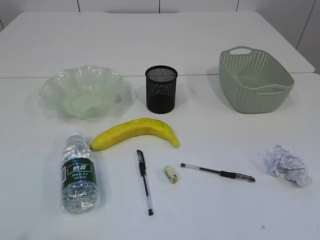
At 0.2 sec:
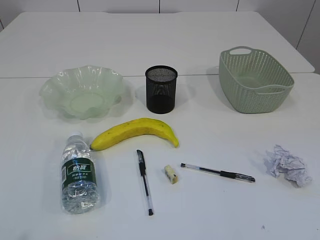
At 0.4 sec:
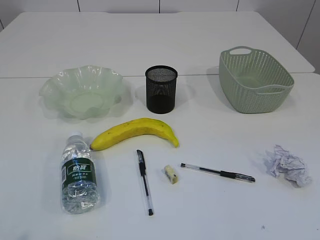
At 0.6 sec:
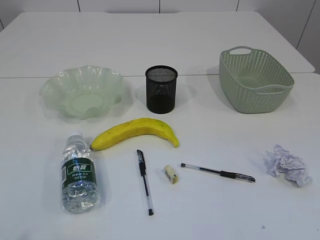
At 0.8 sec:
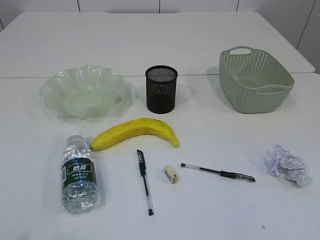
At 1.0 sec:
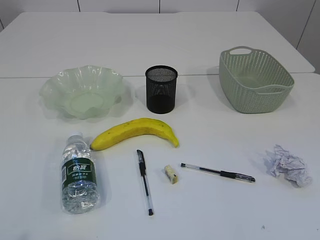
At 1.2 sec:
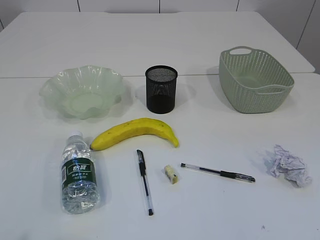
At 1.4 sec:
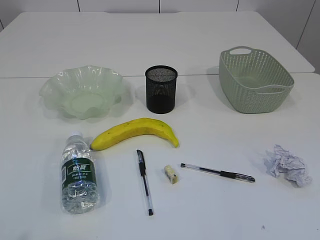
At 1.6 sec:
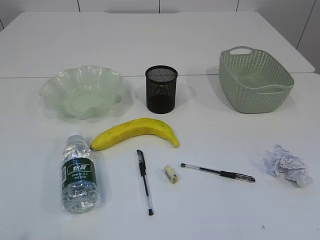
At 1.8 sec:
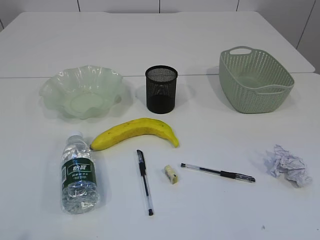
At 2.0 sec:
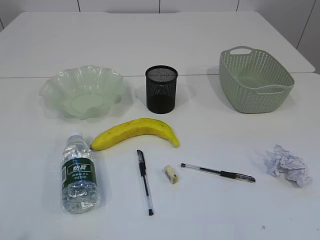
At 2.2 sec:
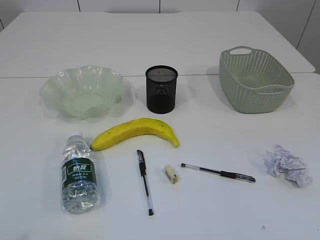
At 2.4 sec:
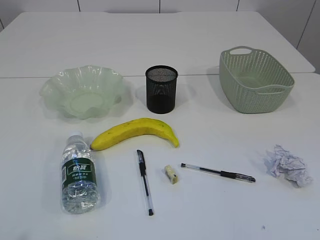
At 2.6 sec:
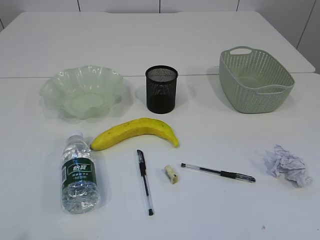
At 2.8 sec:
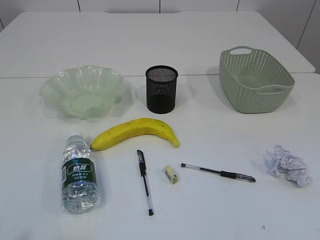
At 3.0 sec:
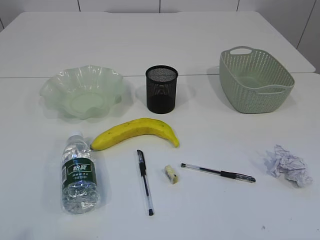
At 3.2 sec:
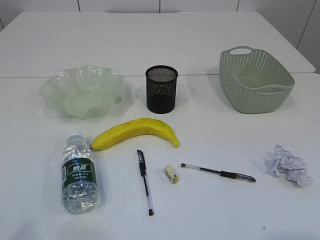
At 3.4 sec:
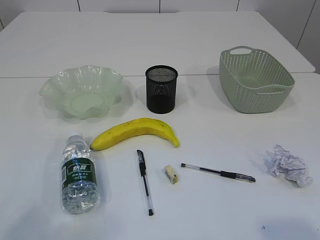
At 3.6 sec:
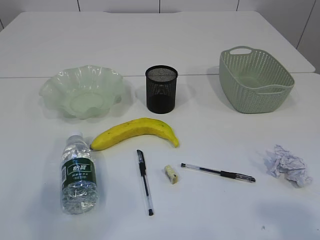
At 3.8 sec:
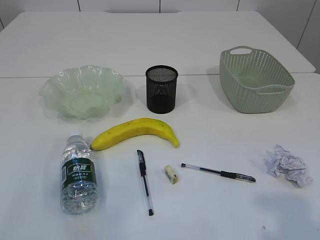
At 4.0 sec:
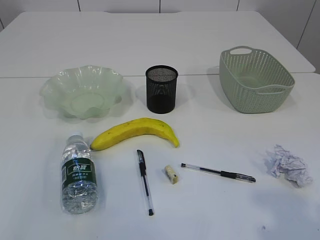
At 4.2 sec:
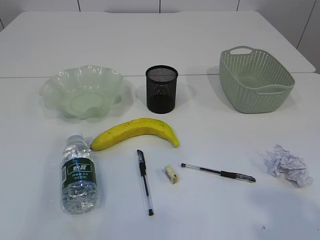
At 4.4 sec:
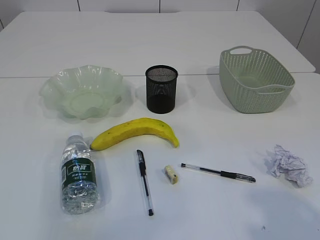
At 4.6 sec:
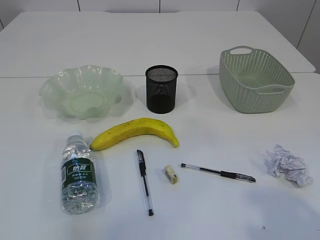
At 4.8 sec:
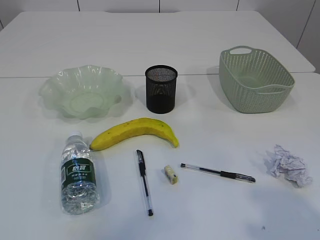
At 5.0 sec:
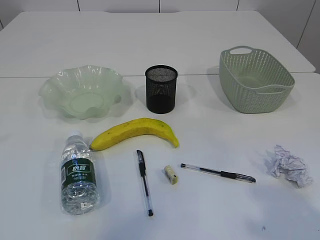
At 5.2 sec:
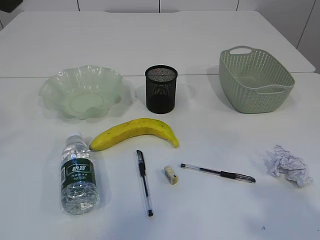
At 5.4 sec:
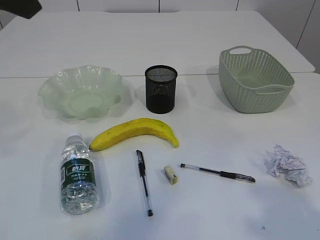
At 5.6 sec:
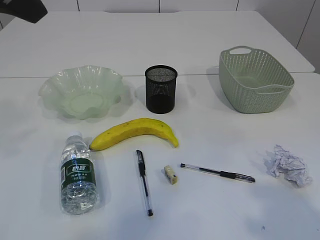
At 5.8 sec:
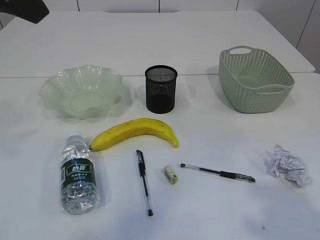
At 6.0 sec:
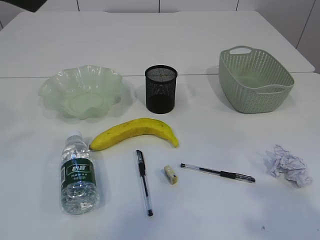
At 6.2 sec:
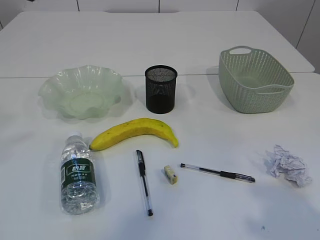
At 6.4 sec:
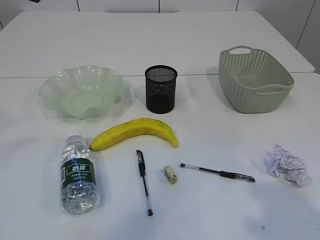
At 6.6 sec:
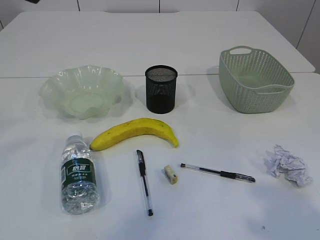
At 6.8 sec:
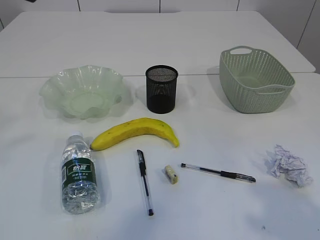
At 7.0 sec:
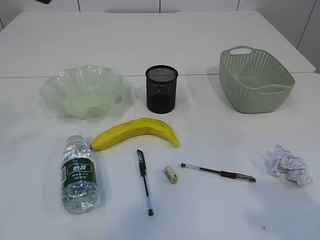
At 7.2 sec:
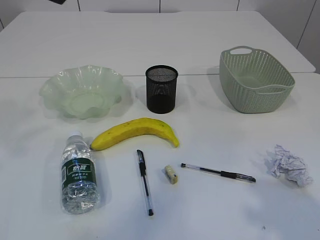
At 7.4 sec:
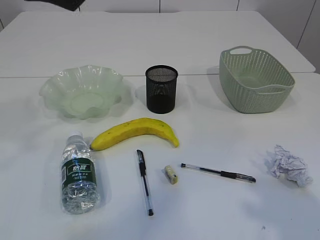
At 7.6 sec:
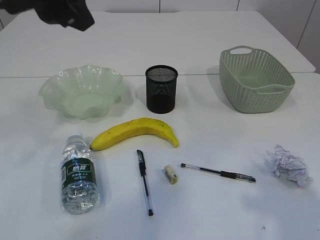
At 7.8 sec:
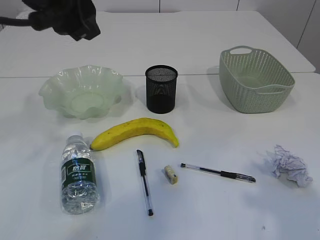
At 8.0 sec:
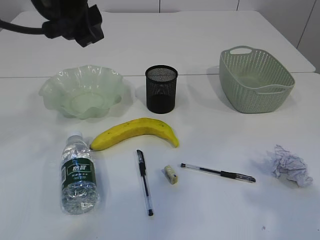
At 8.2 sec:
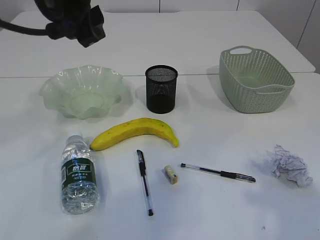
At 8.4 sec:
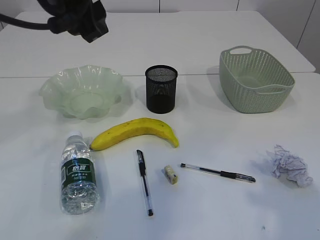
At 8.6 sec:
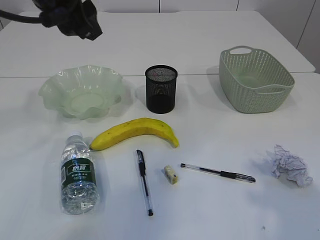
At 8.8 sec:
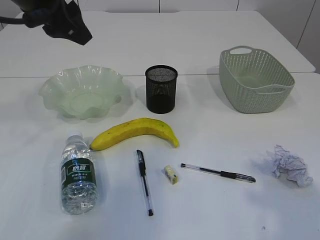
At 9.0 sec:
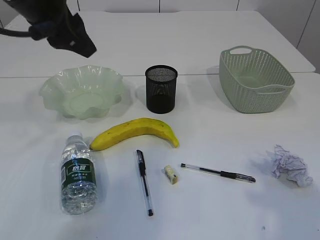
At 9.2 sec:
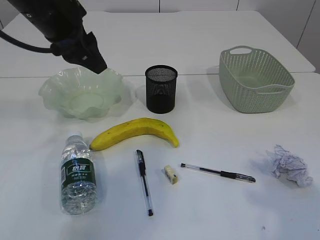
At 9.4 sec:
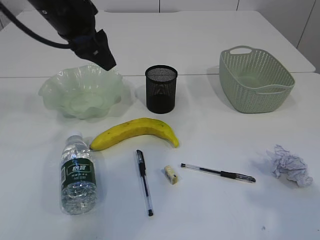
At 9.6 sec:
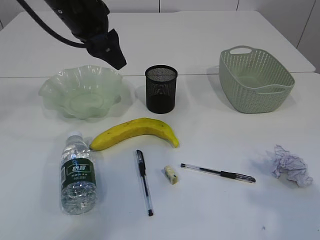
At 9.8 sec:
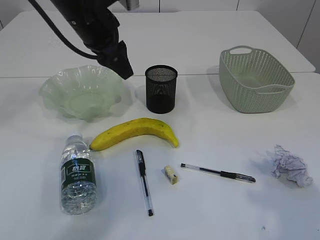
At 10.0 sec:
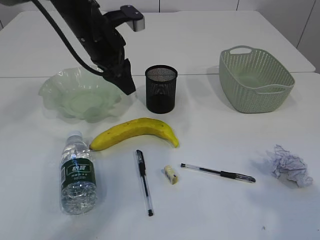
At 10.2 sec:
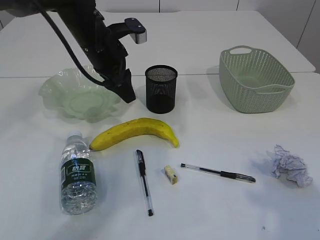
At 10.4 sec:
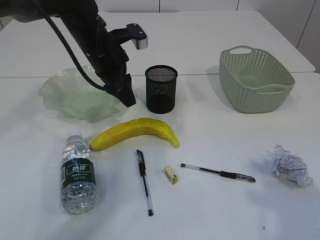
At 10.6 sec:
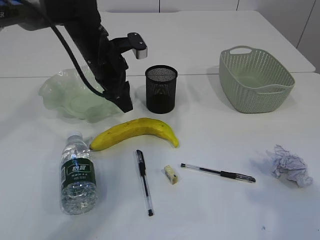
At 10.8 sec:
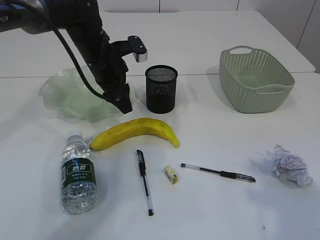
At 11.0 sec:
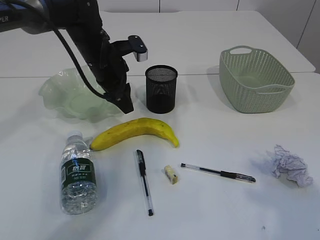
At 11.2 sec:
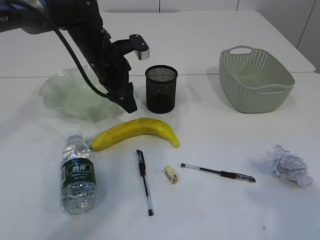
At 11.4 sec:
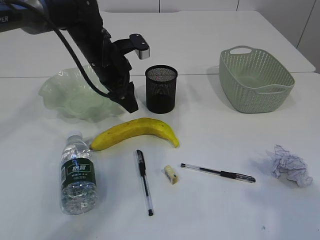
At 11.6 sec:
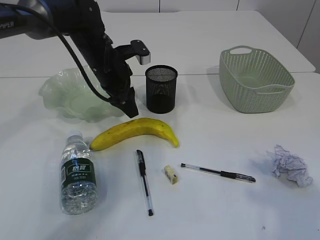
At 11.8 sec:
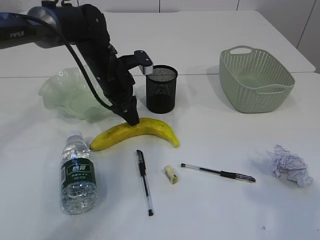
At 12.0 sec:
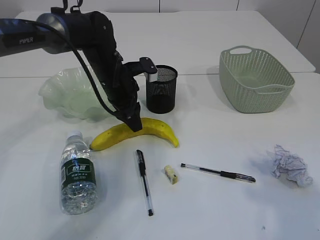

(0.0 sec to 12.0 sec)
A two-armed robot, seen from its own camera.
4.4 sec - 6.0 sec: The left gripper heads to the right and forward, covering some 15 cm.
6.0 sec - 7.6 sec: The left gripper changes place by about 5 cm.
7.6 sec - 9.0 sec: The left gripper heads forward and downward, covering about 10 cm.
9.0 sec - 10.4 sec: The left gripper travels downward, forward and to the right by approximately 15 cm.
10.4 sec - 12.0 sec: The left gripper travels downward by roughly 5 cm.

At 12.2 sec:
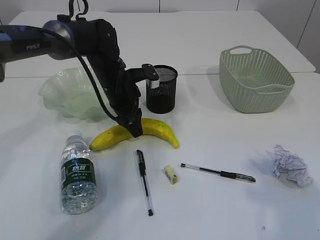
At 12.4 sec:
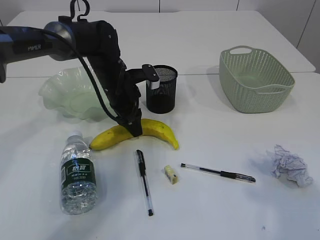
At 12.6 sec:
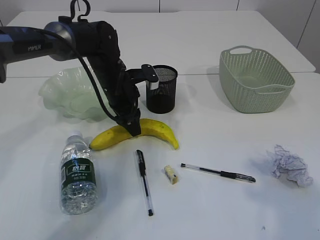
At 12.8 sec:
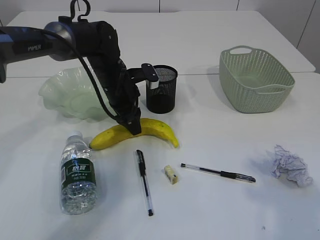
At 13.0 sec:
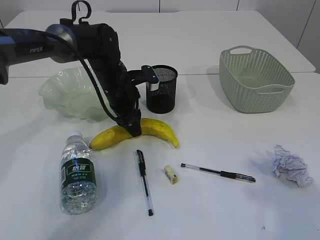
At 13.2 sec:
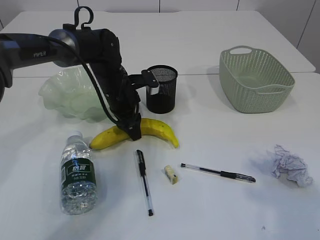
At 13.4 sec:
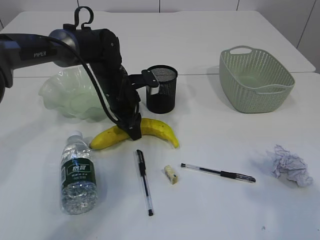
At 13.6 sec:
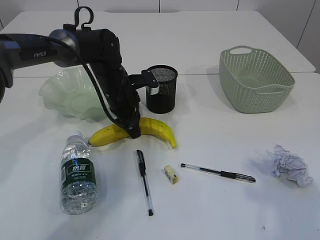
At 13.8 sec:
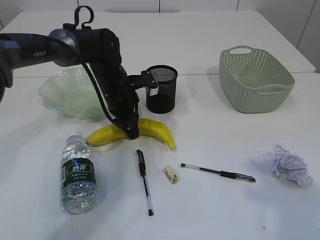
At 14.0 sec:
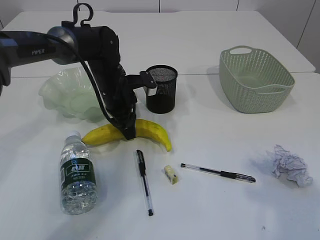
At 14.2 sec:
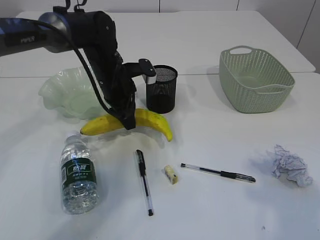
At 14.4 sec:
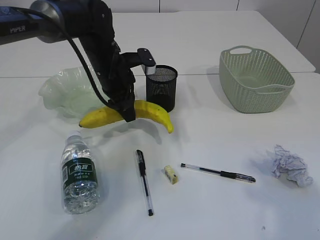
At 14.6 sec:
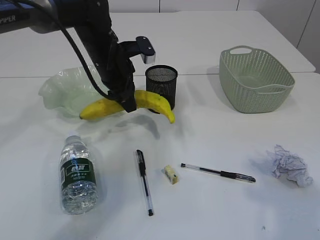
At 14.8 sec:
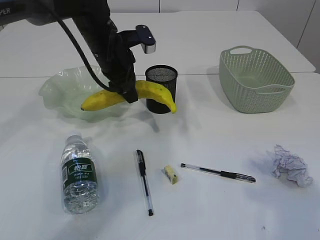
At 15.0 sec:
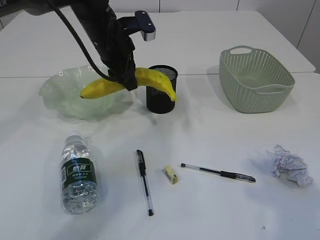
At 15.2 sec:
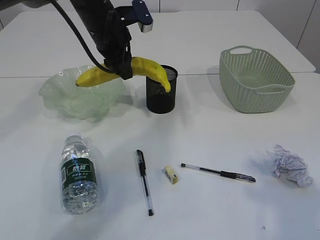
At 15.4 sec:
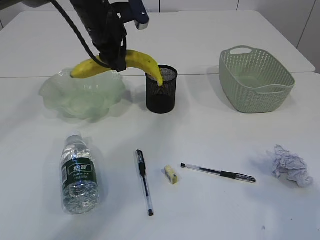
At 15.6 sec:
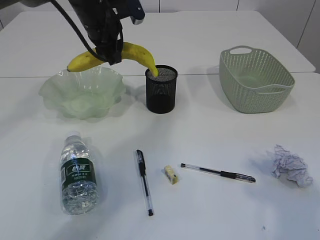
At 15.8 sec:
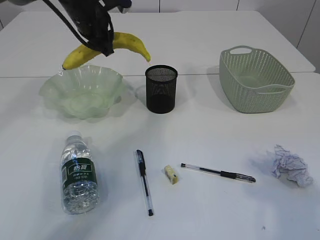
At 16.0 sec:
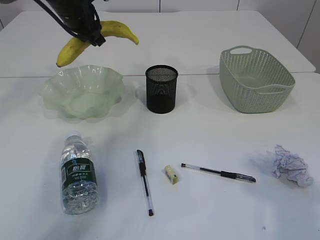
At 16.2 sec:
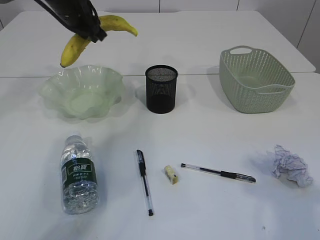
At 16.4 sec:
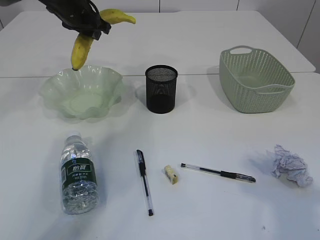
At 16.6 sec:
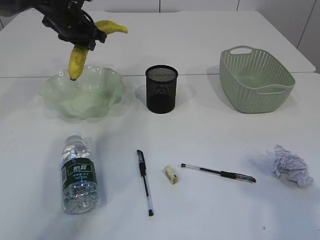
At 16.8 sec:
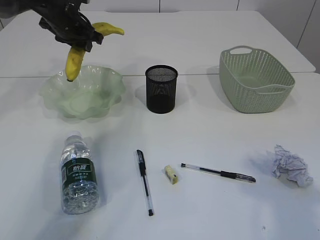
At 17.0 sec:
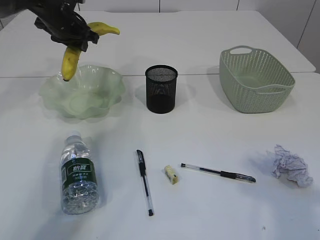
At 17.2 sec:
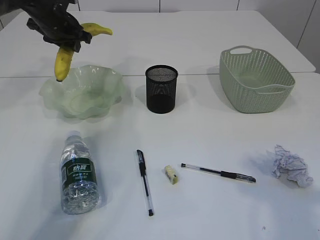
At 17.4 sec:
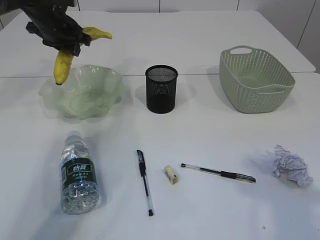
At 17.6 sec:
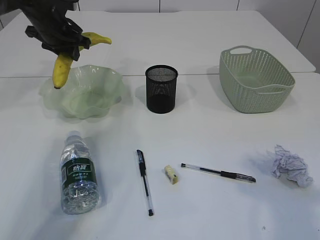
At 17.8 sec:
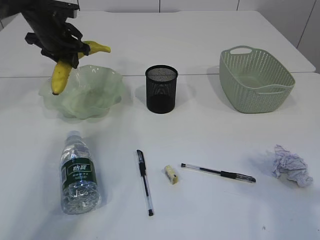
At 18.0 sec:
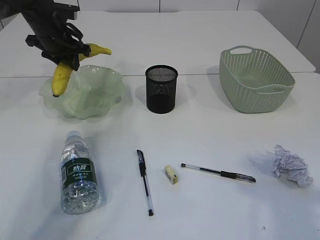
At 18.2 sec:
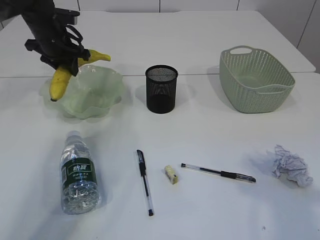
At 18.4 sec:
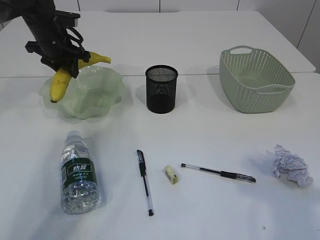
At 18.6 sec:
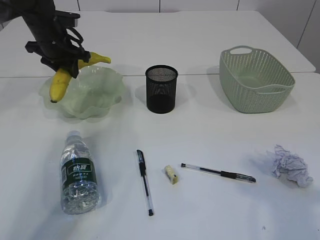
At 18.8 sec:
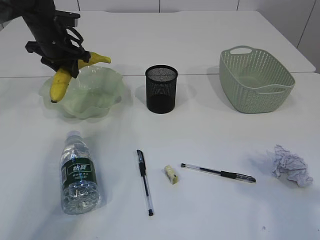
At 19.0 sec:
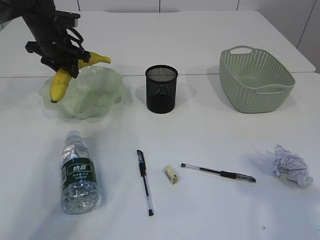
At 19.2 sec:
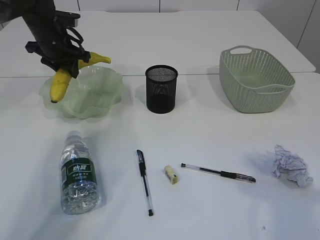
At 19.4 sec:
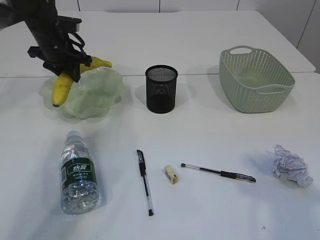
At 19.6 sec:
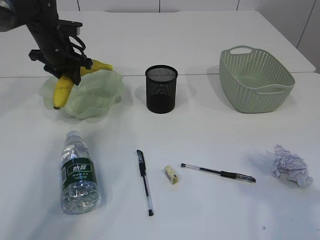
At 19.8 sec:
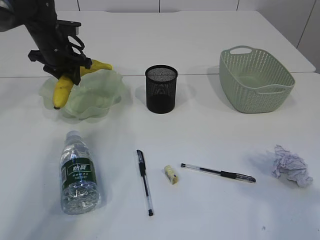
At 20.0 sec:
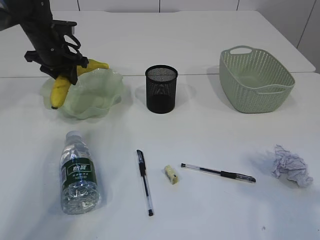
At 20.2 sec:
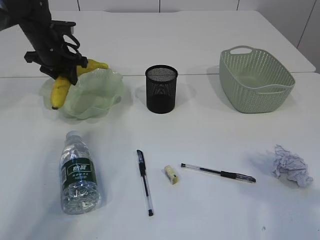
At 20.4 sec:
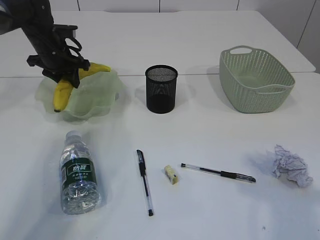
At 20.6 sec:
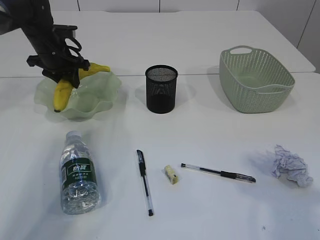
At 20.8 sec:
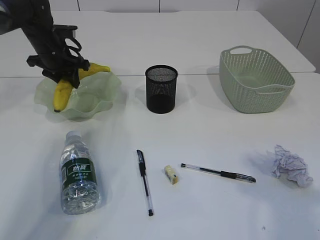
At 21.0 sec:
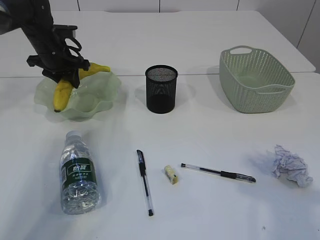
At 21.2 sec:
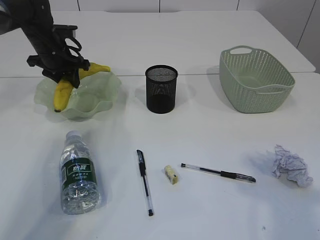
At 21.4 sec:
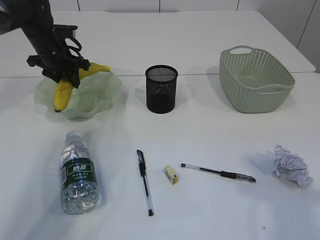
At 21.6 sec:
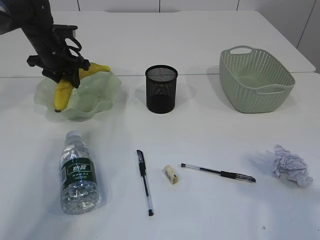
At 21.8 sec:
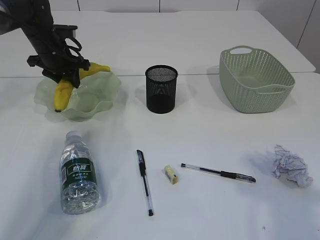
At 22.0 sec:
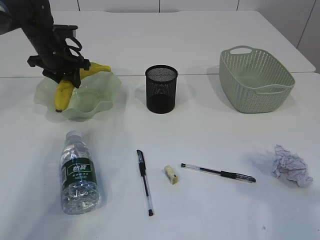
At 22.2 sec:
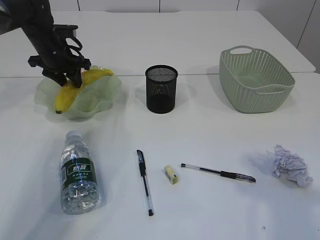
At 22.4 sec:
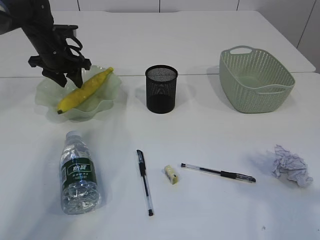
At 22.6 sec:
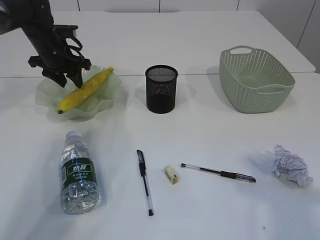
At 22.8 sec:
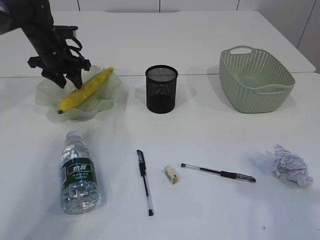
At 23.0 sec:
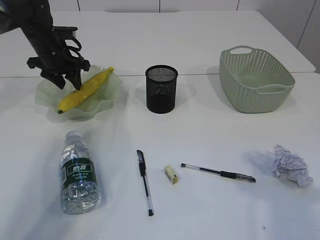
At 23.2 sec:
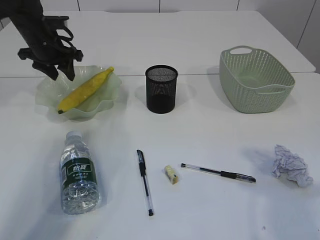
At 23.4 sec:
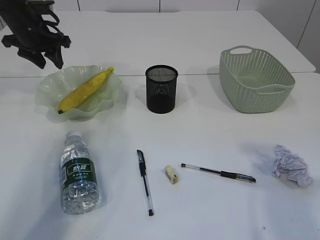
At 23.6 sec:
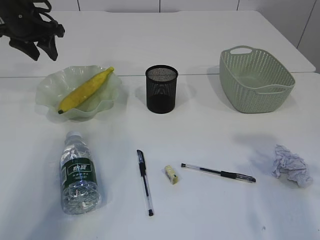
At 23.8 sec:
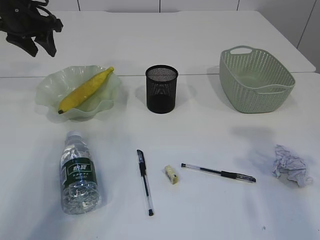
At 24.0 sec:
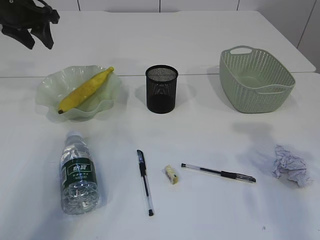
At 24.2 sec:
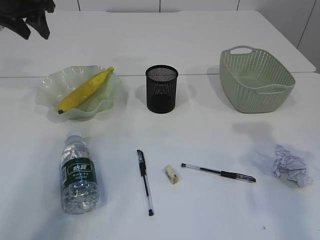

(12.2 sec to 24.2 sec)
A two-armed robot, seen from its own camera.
Step, 14.6 sec - 23.2 sec: Place the banana in the plate.
12.2 sec - 13.8 sec: The left gripper closes its fingers.
13.8 sec - 15.2 sec: The left gripper moves upward, some 15 cm.
15.2 sec - 16.6 sec: The left gripper moves to the left and forward, approximately 10 cm.
16.6 sec - 18.2 sec: The left gripper ends up roughly 5 cm from where it was.
18.2 sec - 19.8 sec: The grippers make only small movements.
19.8 sec - 22.6 sec: Both grippers stay put.
22.6 sec - 24.2 sec: The left gripper moves upward, approximately 15 cm.
